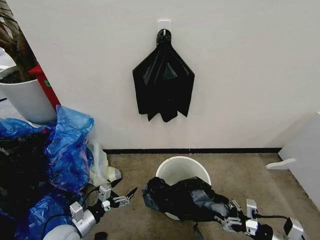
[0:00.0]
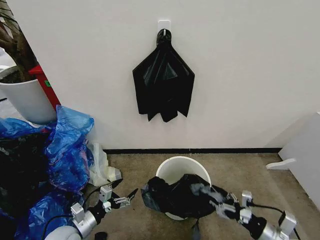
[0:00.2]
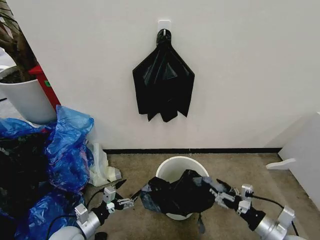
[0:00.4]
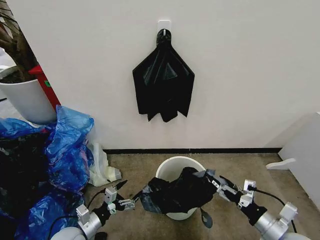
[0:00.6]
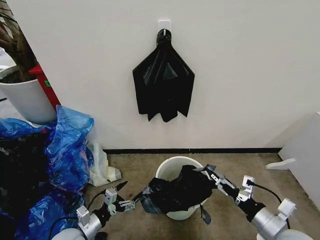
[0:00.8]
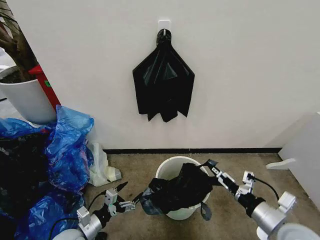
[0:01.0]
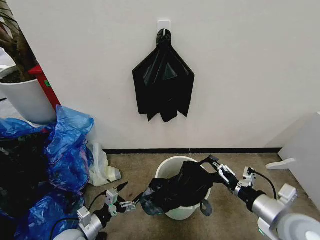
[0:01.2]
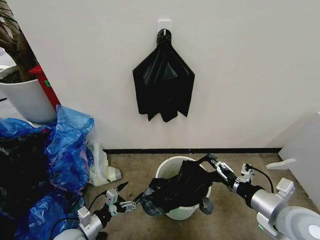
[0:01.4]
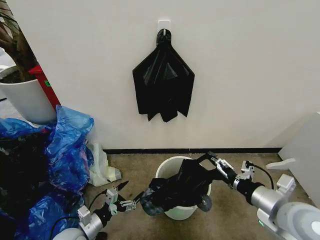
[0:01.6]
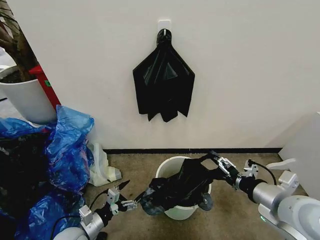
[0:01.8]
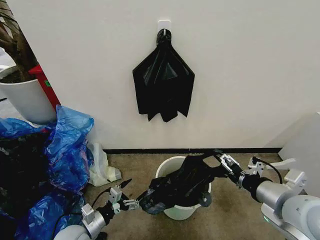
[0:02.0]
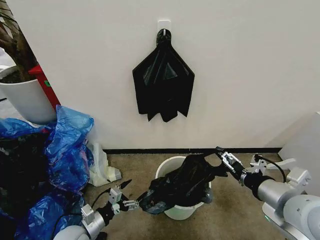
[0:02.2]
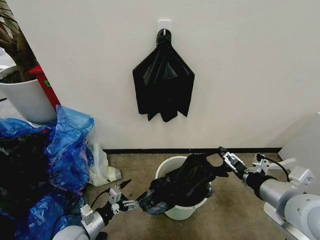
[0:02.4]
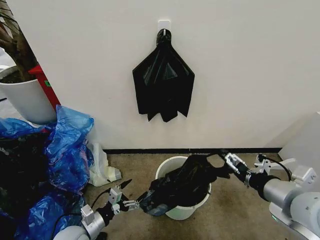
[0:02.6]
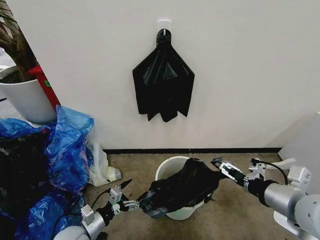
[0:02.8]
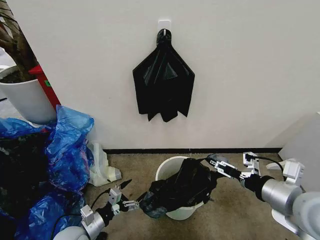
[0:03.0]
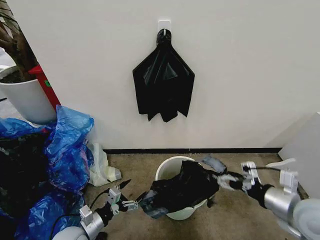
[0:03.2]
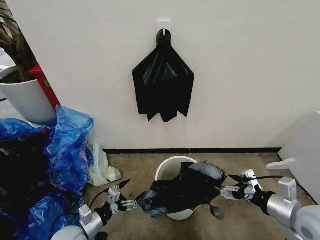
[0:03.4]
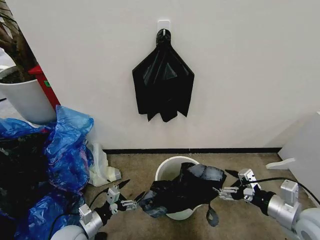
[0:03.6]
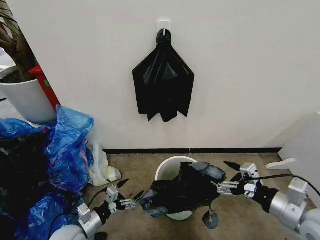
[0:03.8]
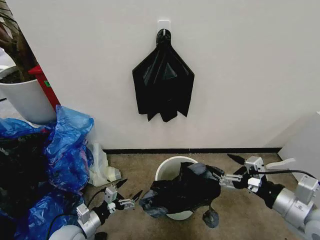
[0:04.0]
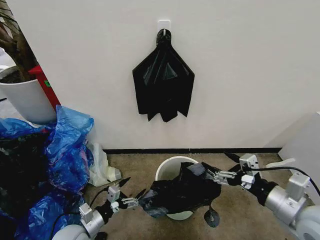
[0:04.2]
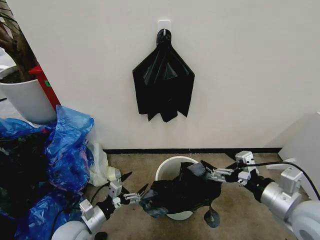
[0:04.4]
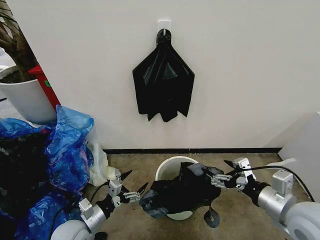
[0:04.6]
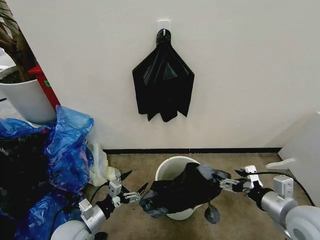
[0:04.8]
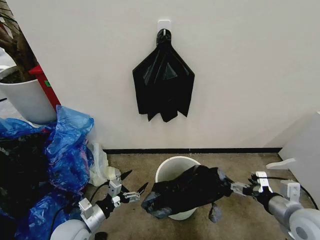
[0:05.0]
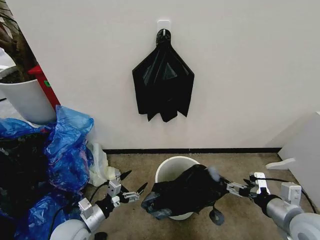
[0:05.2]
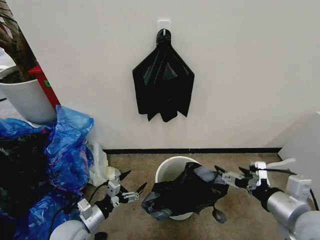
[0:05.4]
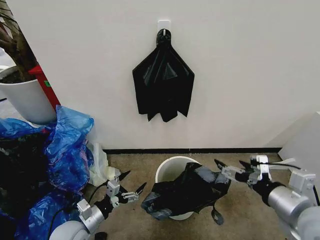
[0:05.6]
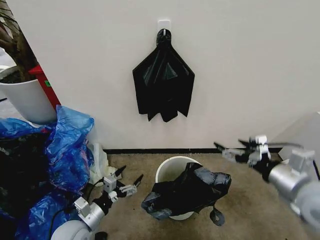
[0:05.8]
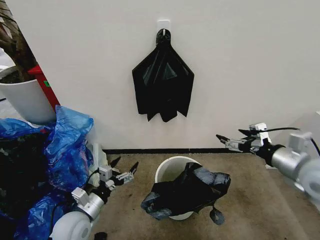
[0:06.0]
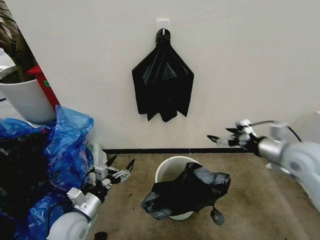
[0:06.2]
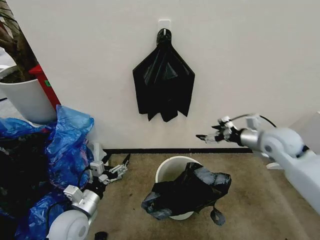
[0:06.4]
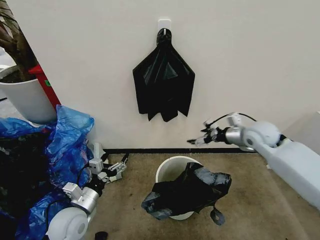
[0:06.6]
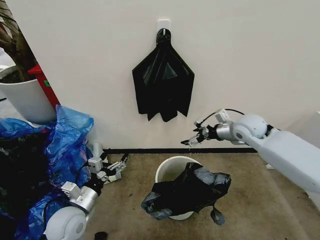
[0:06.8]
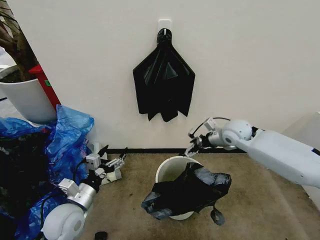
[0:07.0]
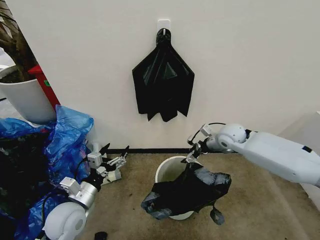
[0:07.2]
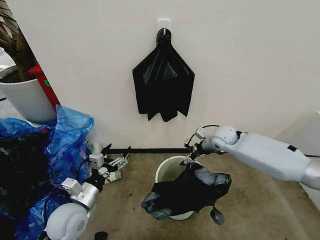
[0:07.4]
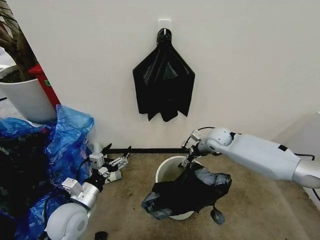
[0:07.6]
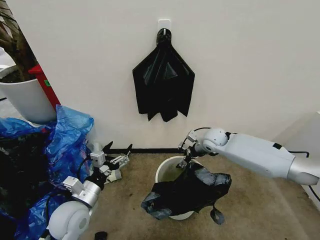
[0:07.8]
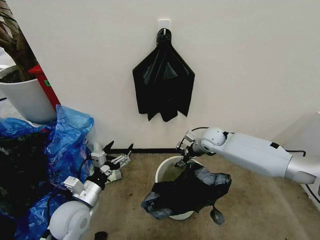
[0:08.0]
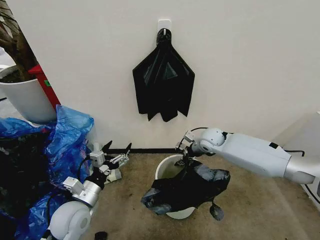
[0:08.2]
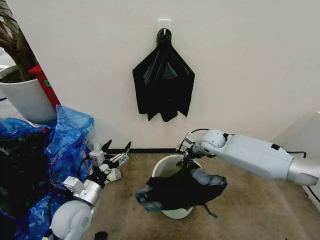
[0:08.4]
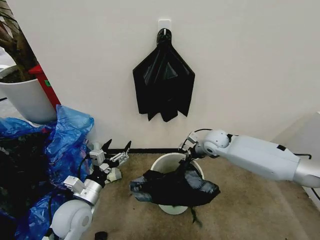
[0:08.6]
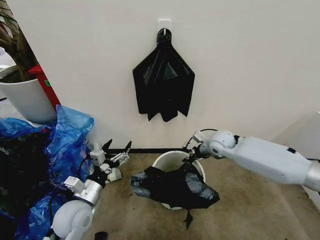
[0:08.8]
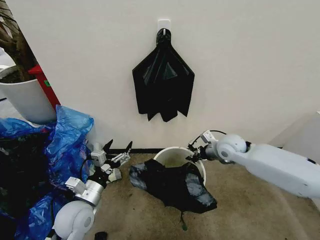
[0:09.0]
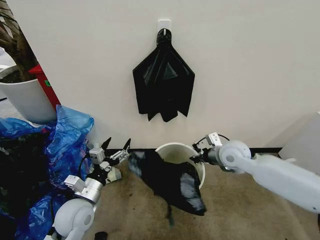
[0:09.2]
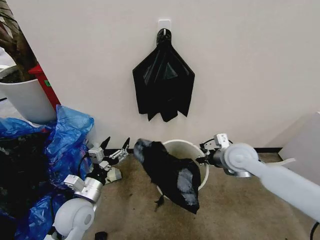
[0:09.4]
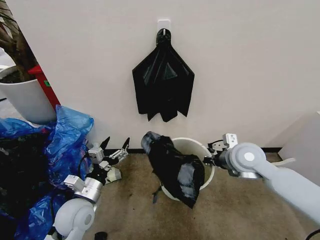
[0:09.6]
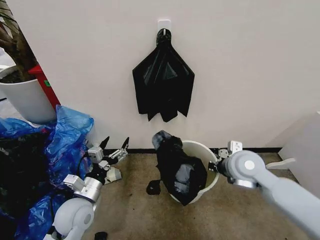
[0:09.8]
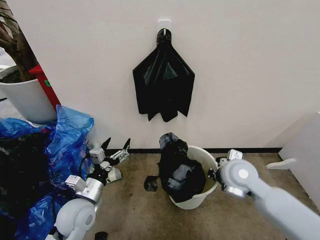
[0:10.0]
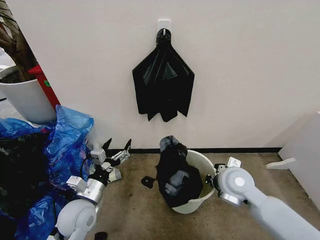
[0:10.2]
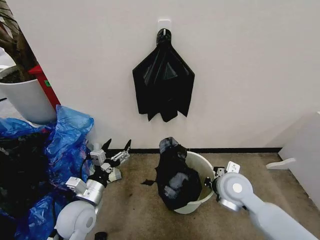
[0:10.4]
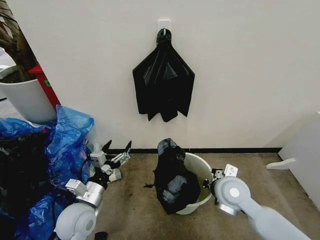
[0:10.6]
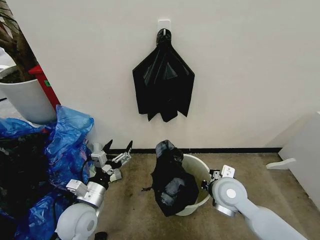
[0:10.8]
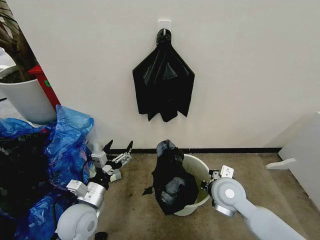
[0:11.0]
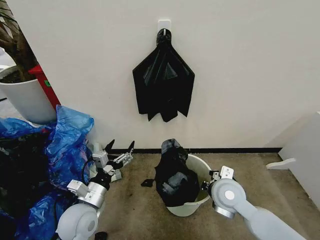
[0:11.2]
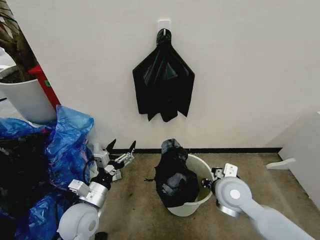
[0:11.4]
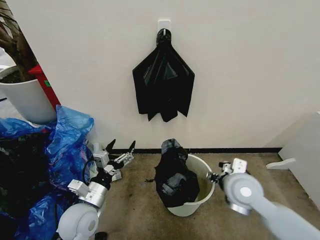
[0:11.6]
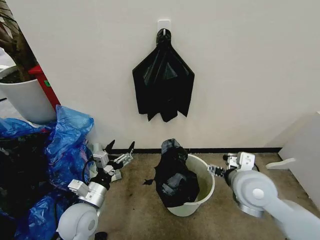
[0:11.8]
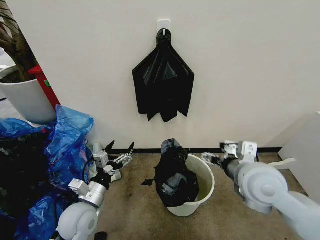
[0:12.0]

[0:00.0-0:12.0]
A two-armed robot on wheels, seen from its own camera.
Task of the whole recording: Place the garbage bag over the trash bin.
0:00.0 to 0:01.6: The right gripper shifts some 20 cm upward and to the left.
0:01.6 to 0:03.0: The right gripper moves upward, about 5 cm.
0:04.4 to 0:06.0: The right gripper heads forward, covering roughly 5 cm, and moves approximately 10 cm downward and comes back.
0:06.0 to 0:07.6: The right gripper shifts approximately 35 cm forward, downward and to the left. The left gripper moves upward, roughly 5 cm.
0:07.6 to 0:09.0: The right gripper moves backward, about 5 cm, and closes its fingers.
0:09.0 to 0:10.4: The right gripper shifts approximately 15 cm backward.
0:10.4 to 0:12.0: The right gripper moves upward, roughly 10 cm, and opens.

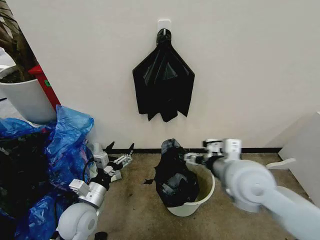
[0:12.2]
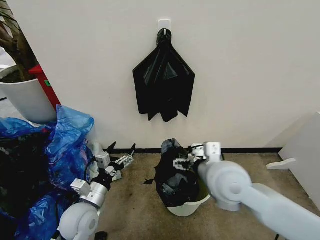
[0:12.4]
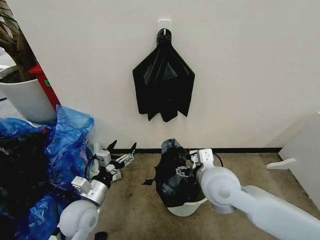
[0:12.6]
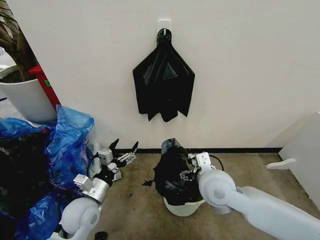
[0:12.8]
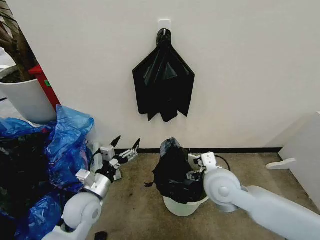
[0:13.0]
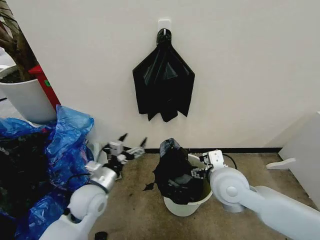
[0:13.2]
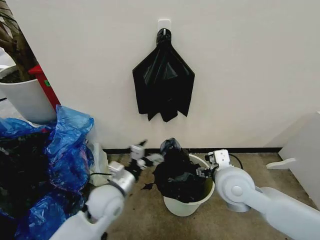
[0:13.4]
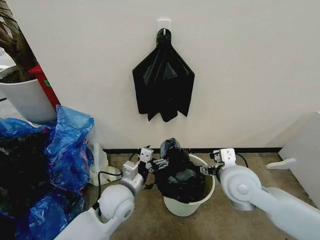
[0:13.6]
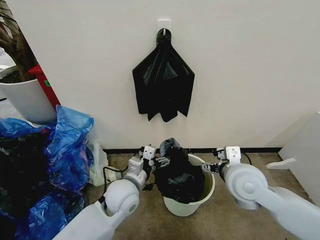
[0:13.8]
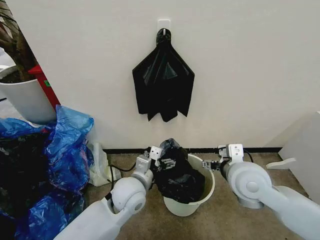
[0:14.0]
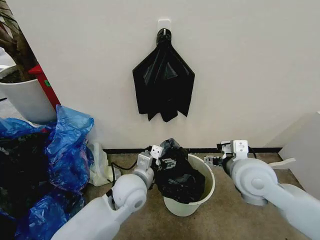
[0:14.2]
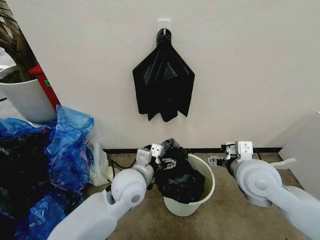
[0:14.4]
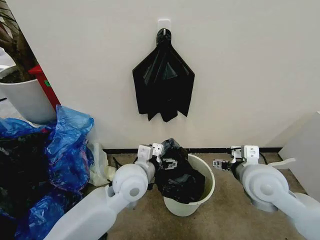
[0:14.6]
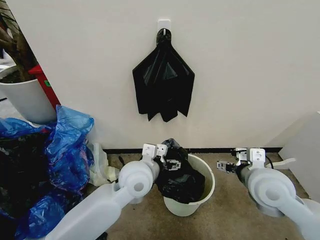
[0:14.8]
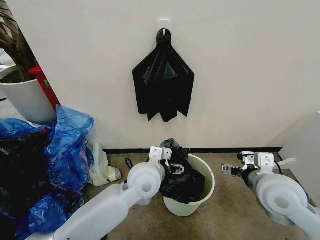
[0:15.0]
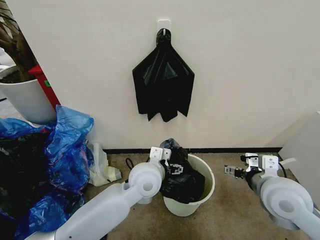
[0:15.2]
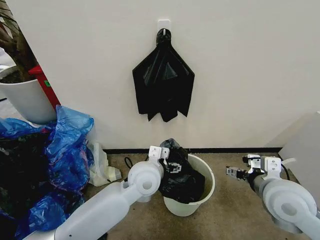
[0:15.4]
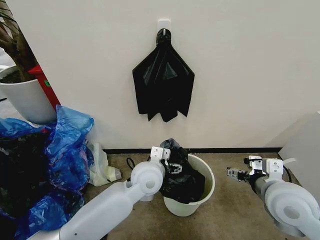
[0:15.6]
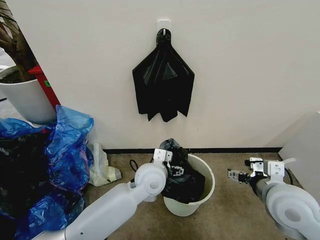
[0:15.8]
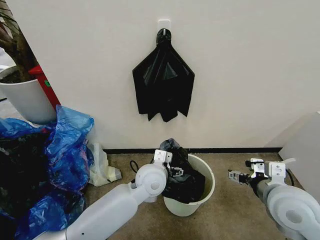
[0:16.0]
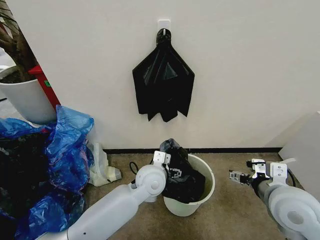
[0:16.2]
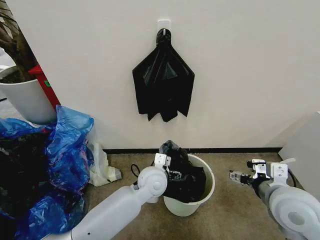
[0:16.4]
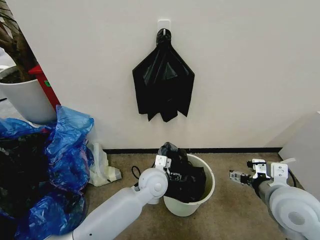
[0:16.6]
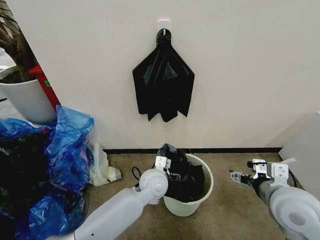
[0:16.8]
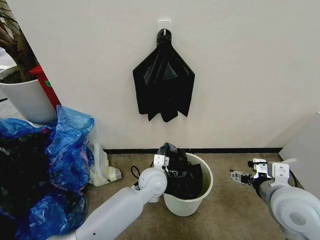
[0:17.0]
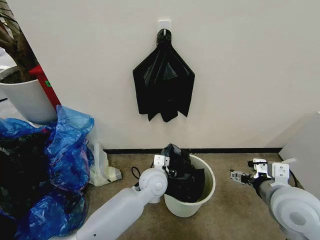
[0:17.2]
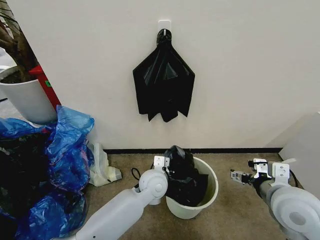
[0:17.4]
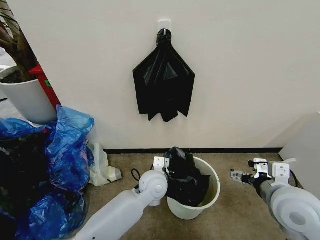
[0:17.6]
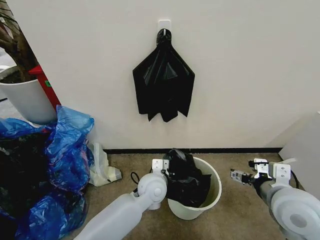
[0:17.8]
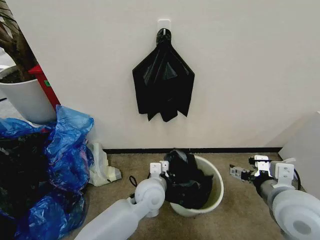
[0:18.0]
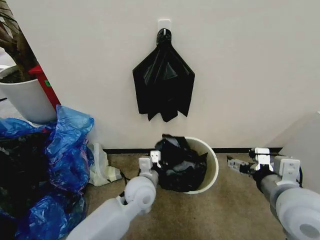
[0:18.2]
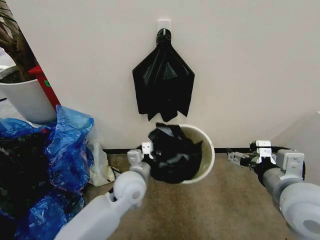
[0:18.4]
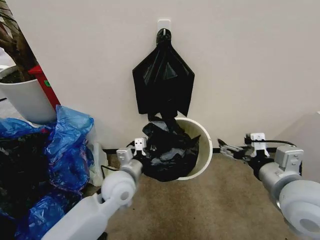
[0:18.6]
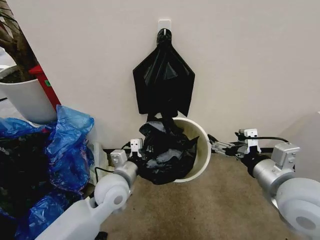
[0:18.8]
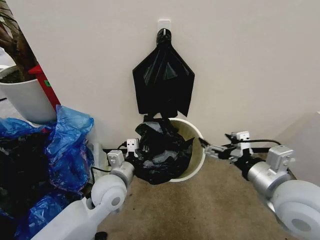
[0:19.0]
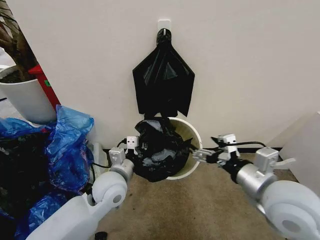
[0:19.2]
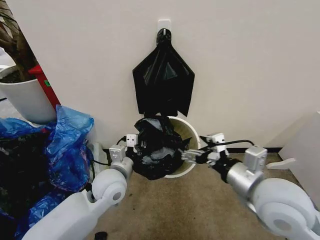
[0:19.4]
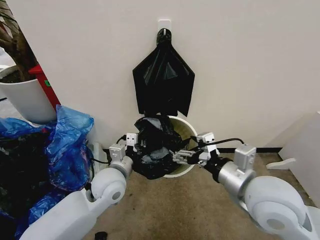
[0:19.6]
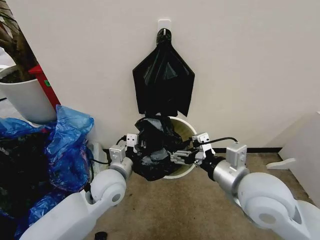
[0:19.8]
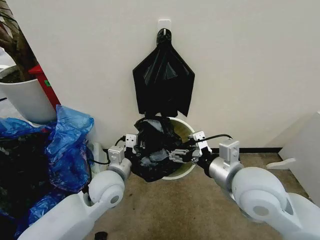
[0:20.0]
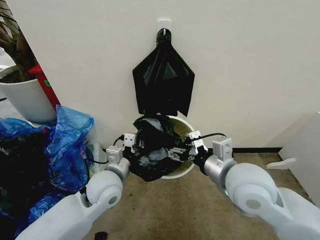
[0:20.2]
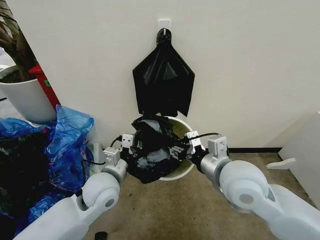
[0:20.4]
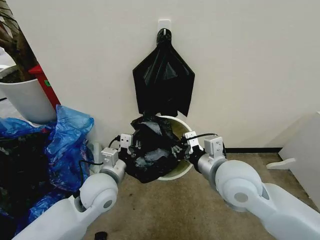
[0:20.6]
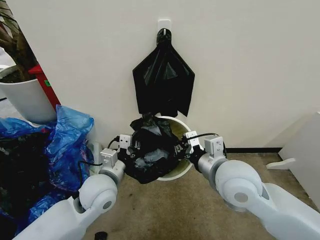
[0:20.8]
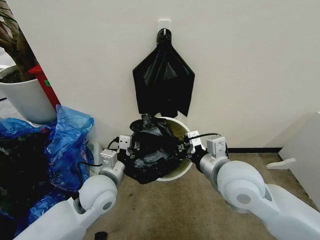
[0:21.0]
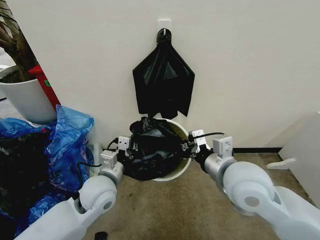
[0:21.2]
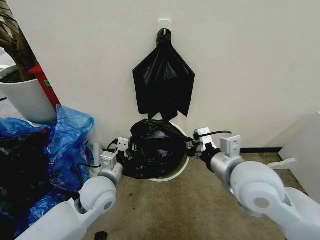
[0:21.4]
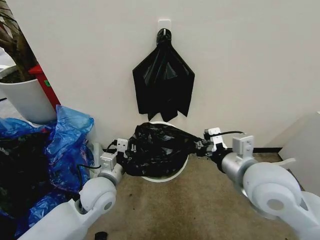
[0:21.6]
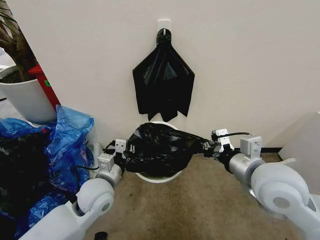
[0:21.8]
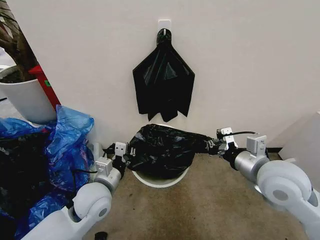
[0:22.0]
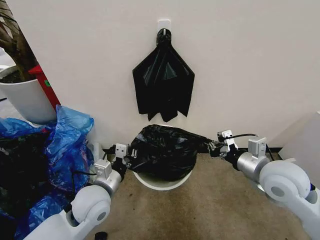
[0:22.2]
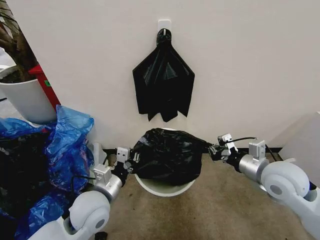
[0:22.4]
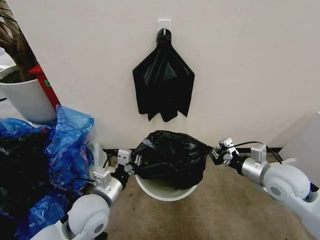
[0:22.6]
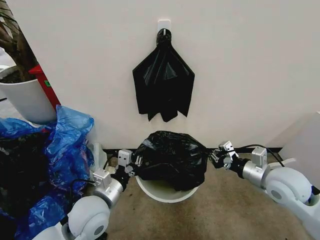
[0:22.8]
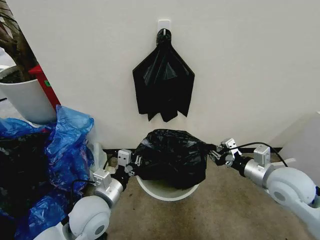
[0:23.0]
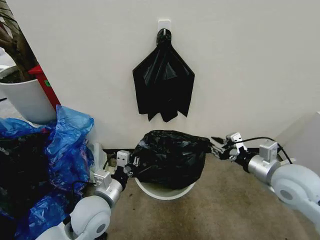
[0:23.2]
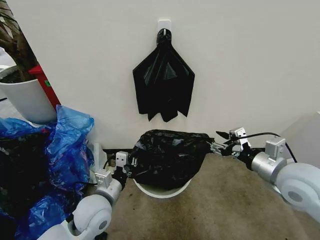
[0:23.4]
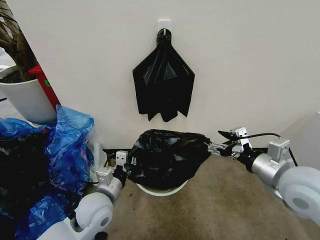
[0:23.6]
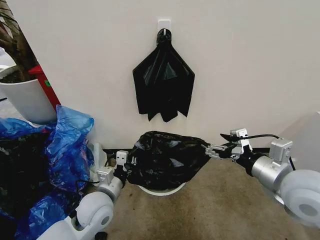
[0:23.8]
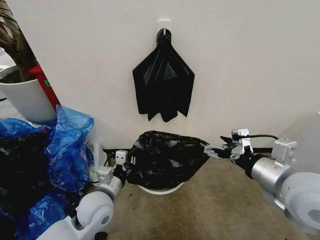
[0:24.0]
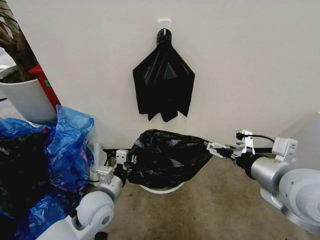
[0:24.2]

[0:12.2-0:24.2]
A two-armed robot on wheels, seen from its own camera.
Task of the whole recording: Place the garbage bag over the trash bin.
0:12.2 to 0:13.8: The left gripper travels to the right and forward by approximately 15 cm. The right gripper moves roughly 5 cm.
0:13.8 to 0:15.2: The right gripper goes roughly 5 cm to the right. The left gripper travels to the right and upward by roughly 10 cm.
0:15.2 to 0:16.6: The left gripper travels downward by about 5 cm.
0:16.6 to 0:18.2: The left gripper closes up.
0:18.2 to 0:19.8: The right gripper heads to the left, covering roughly 10 cm. The left gripper shifts some 10 cm to the left and upward.
0:19.8 to 0:21.2: The right gripper closes up.
0:21.2 to 0:22.6: The right gripper is displaced to the right and downward by about 15 cm. The left gripper shifts by about 5 cm.
0:22.6 to 0:24.2: The right gripper shifts approximately 15 cm upward, backward and to the left, and opens up.
